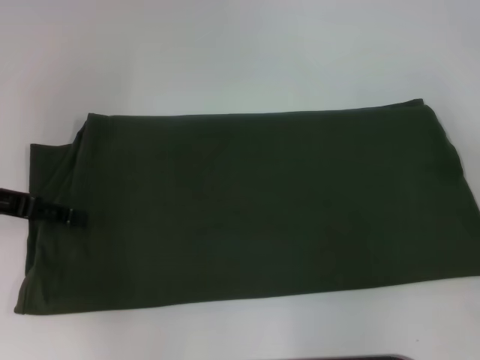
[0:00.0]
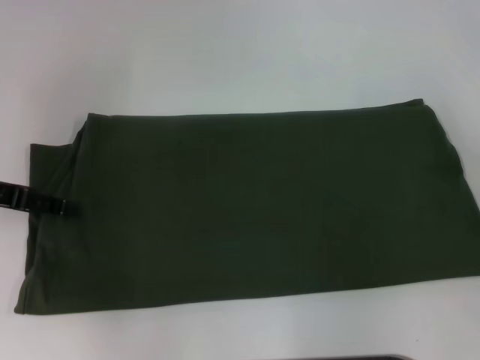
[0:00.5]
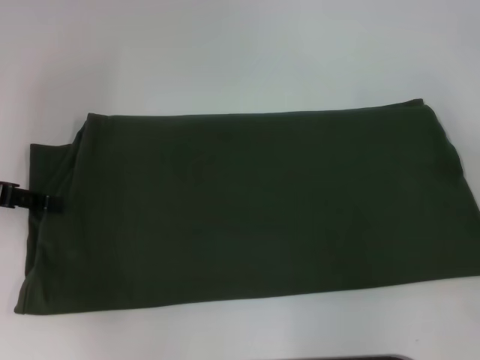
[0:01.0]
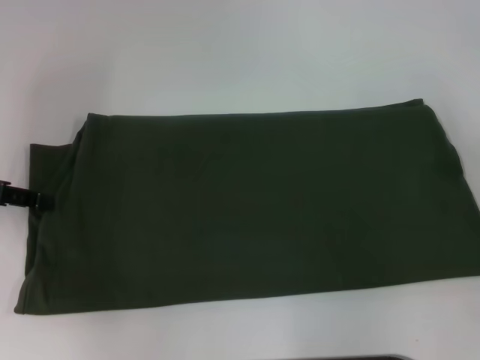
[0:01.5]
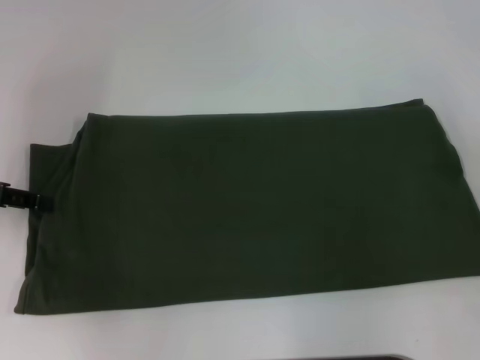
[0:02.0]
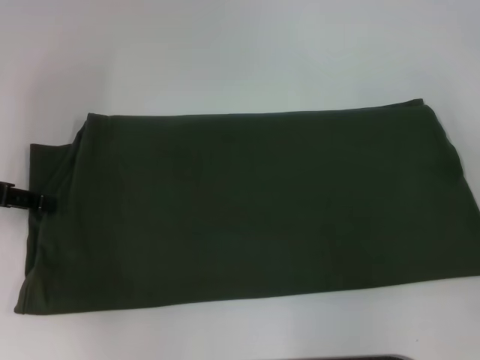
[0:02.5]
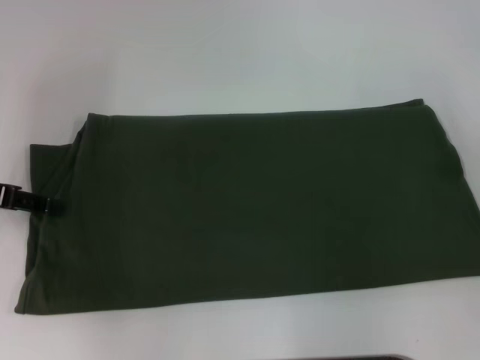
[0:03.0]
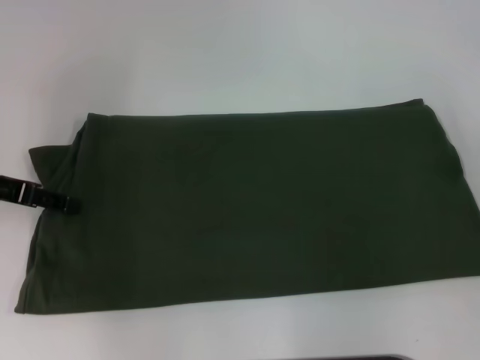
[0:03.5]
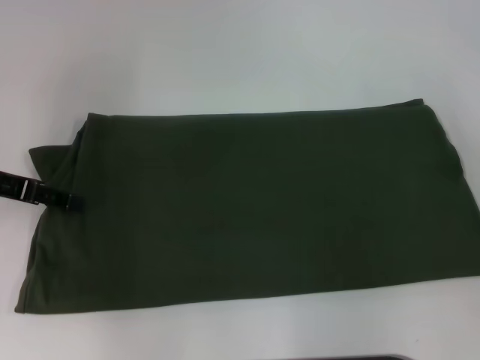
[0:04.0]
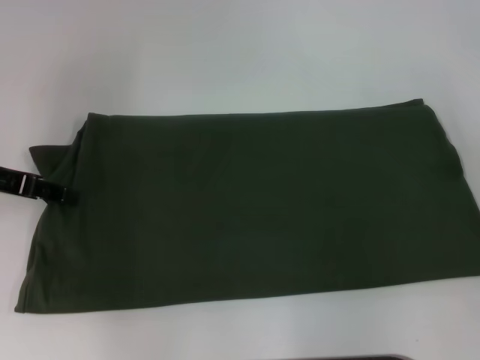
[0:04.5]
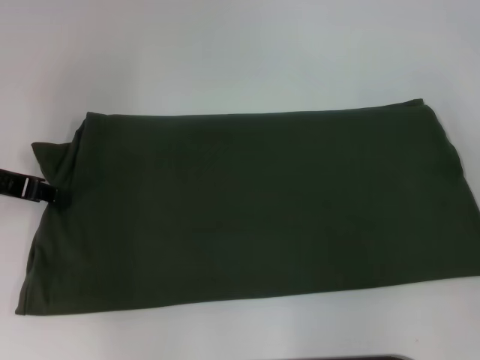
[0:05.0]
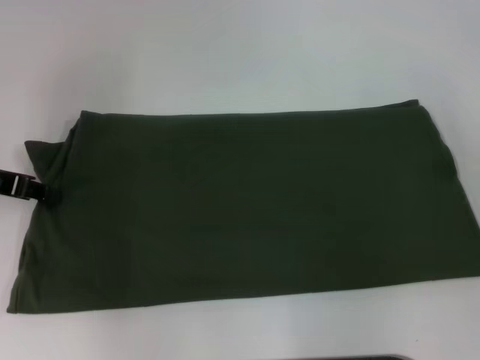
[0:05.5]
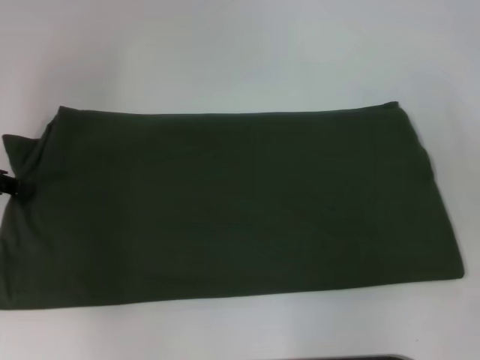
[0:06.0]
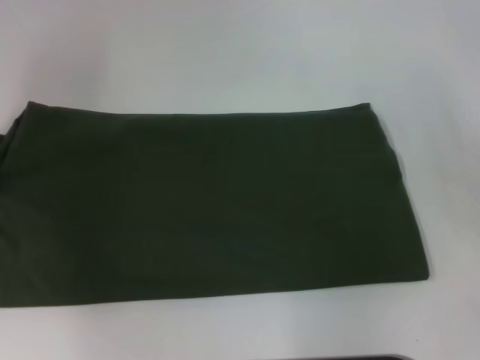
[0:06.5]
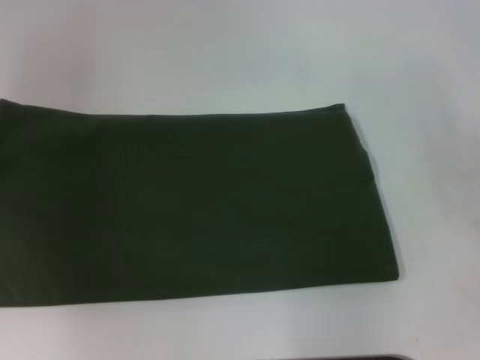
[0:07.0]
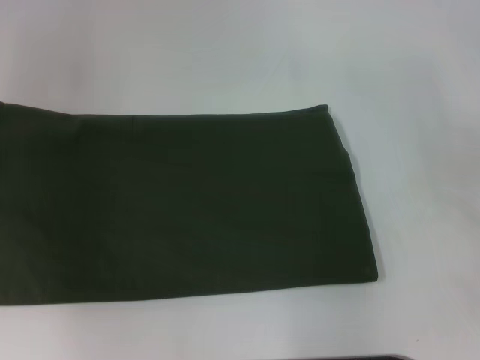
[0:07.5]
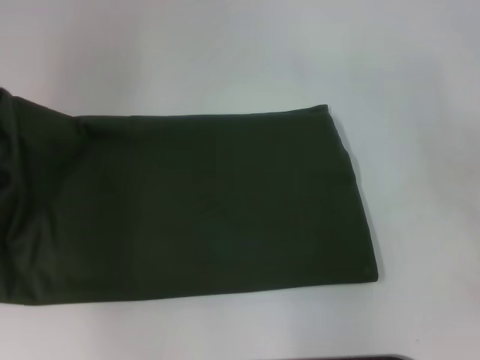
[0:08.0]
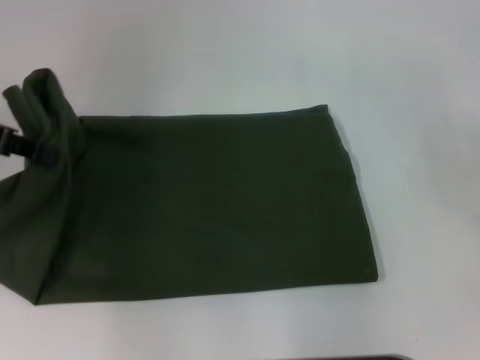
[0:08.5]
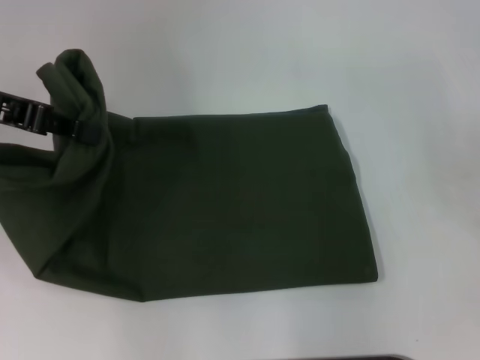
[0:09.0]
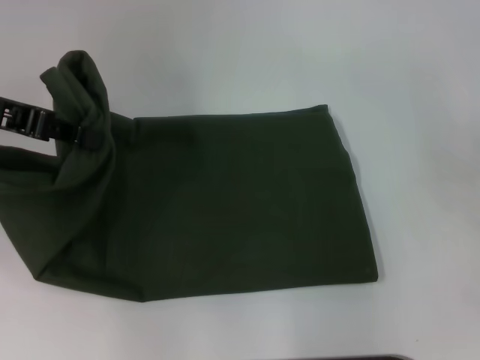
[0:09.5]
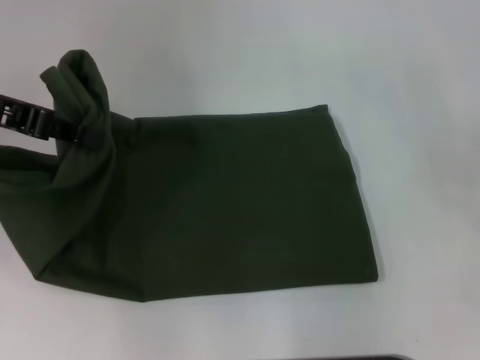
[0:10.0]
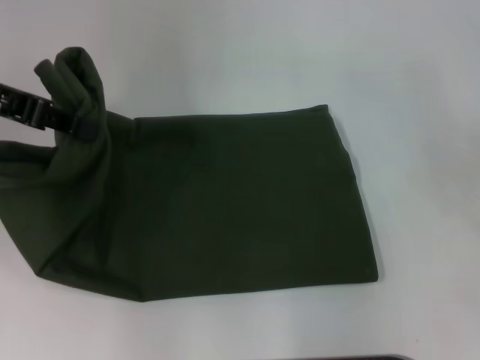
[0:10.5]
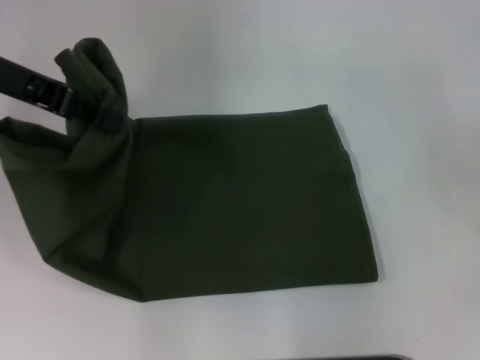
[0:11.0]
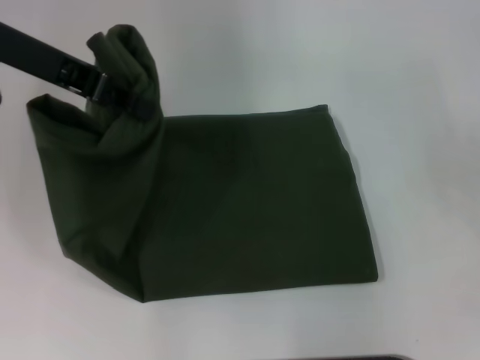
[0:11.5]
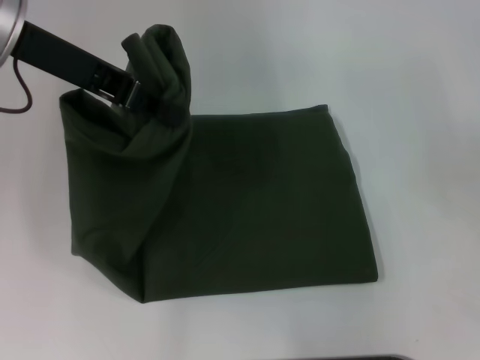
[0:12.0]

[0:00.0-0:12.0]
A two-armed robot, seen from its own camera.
0:02.0 to 0:04.0: The grippers make only small movements.
0:04.0 to 0:06.0: The left gripper closes up.
0:06.0 to 0:08.0: The left gripper heads upward, covering about 5 cm.
0:08.0 to 0:10.0: The left gripper travels to the right by roughly 5 cm.
0:10.0 to 0:12.0: The left gripper is displaced to the right by some 10 cm.

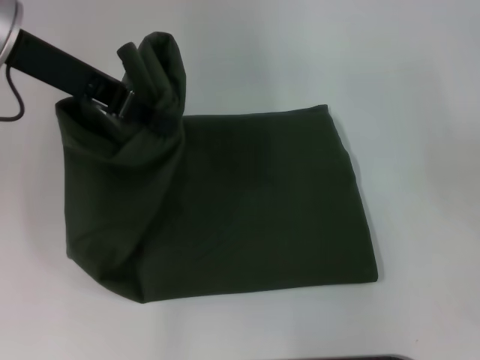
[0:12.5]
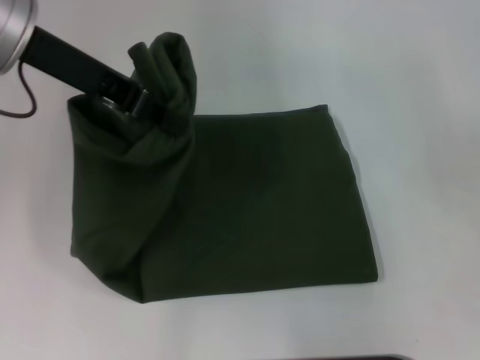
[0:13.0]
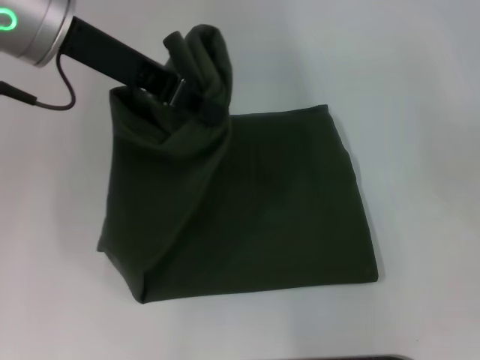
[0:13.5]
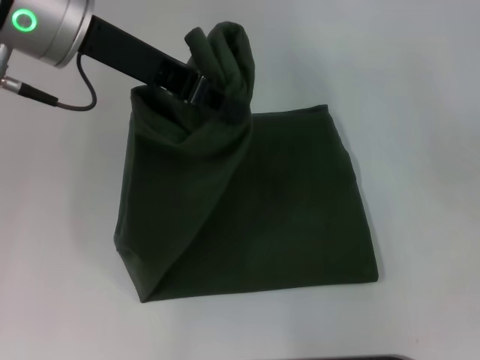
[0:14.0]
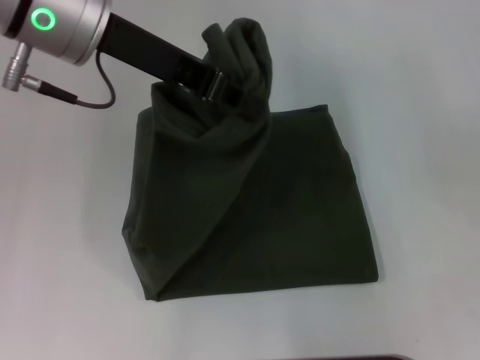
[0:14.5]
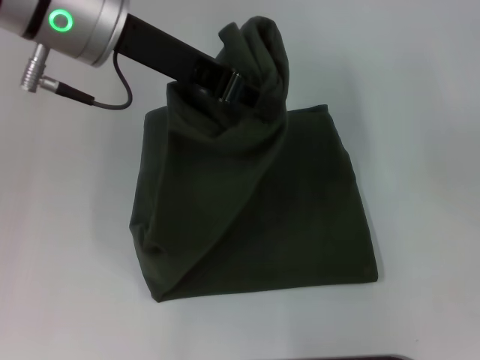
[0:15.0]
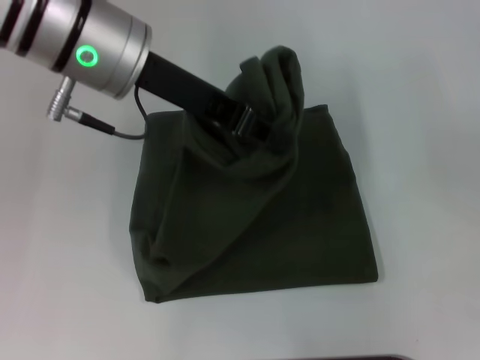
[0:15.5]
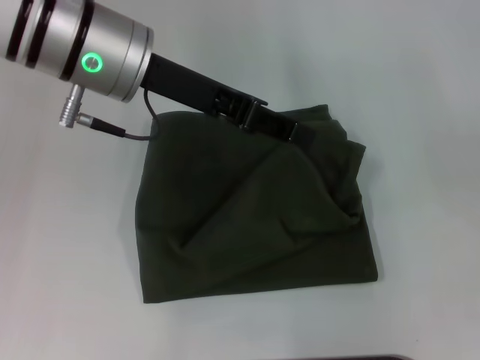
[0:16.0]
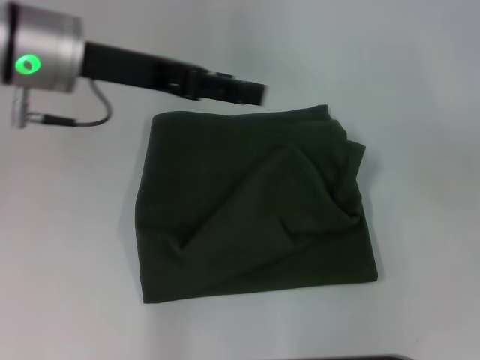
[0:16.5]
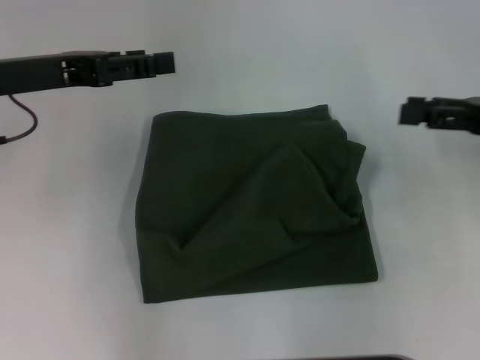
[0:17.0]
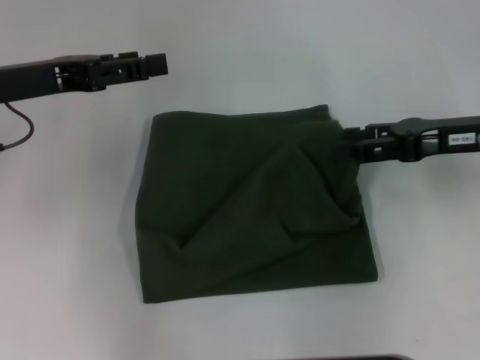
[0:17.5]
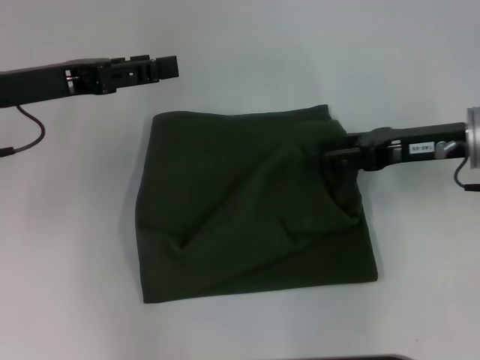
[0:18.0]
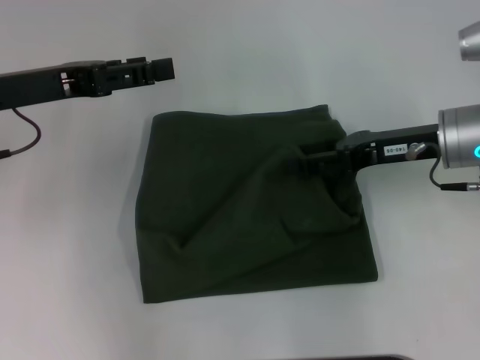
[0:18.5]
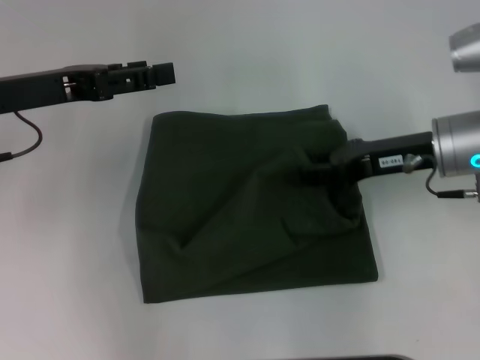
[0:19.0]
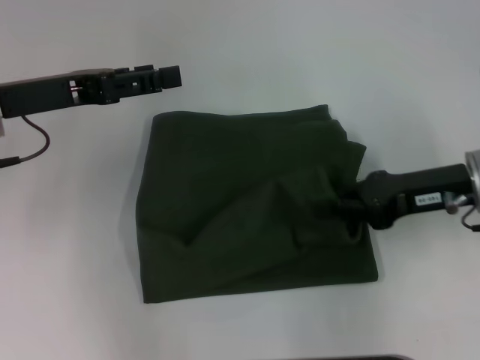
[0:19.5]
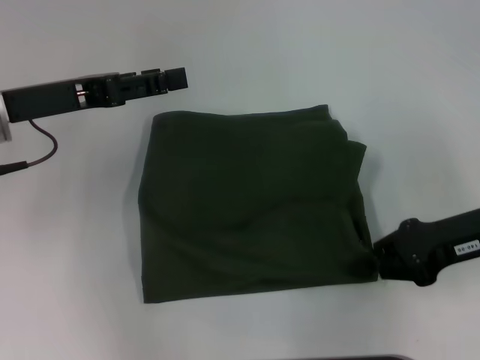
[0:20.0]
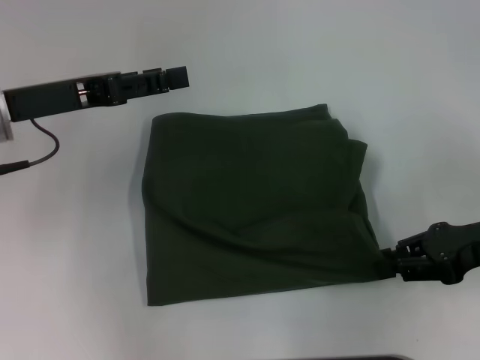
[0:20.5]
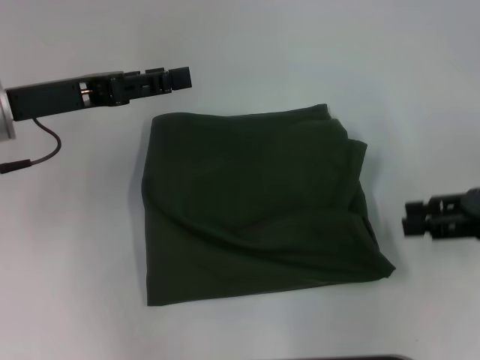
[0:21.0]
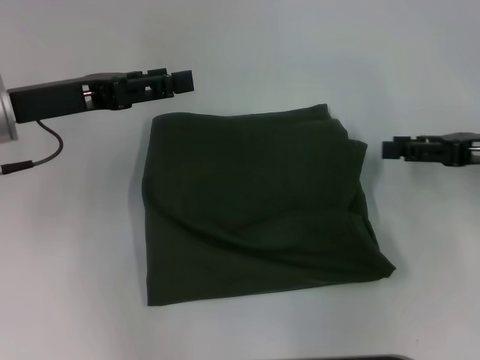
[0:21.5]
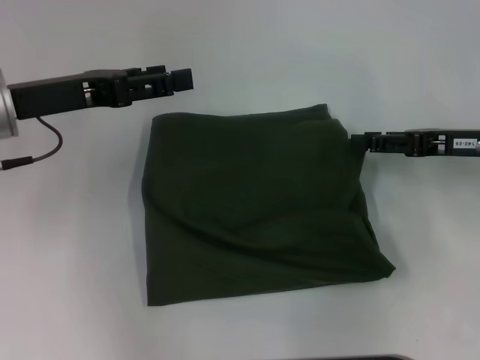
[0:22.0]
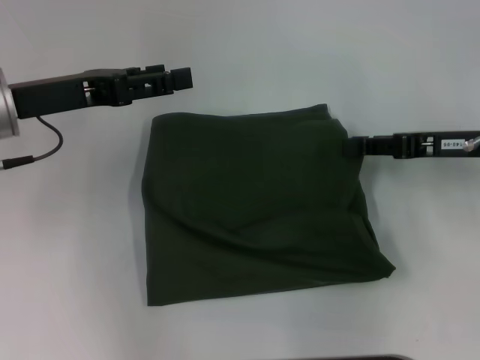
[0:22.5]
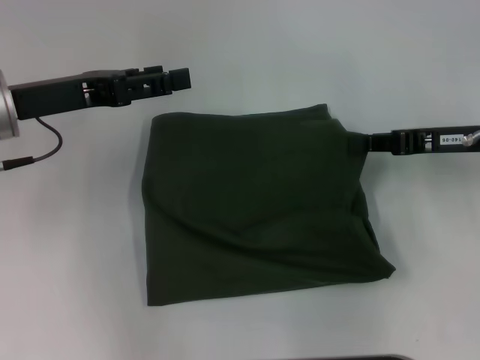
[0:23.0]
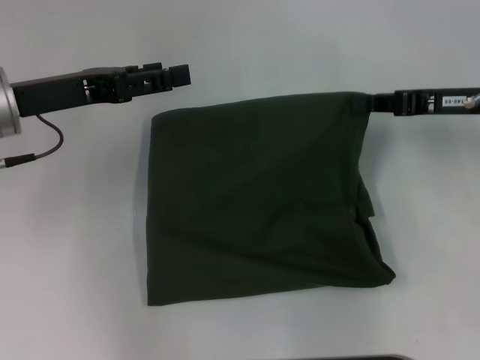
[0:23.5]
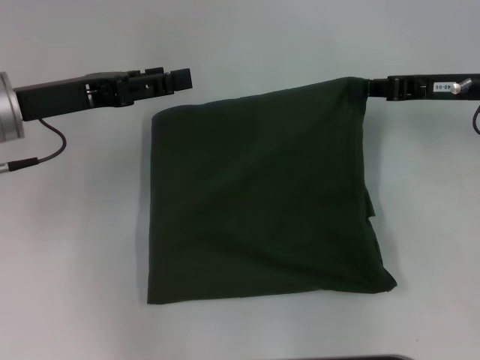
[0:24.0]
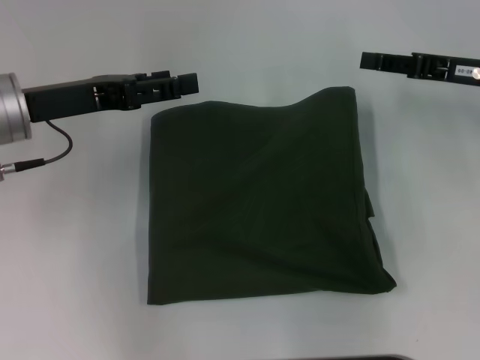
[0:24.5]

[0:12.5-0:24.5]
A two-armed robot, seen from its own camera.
0:12.5 to 0:14.5: The left gripper is displaced to the right by about 5 cm.
0:14.5 to 0:16.5: The left gripper is displaced downward by approximately 5 cm, and opens up.
0:16.5 to 0:18.5: The left gripper travels to the left by about 5 cm; the right gripper moves to the left, approximately 15 cm.
0:18.5 to 0:20.5: The right gripper is displaced backward and to the right by some 10 cm, and closes.
0:20.5 to 0:22.5: The right gripper goes about 5 cm forward, and opens up.
0:22.5 to 0:24.5: There are only small adjustments of the grippers.

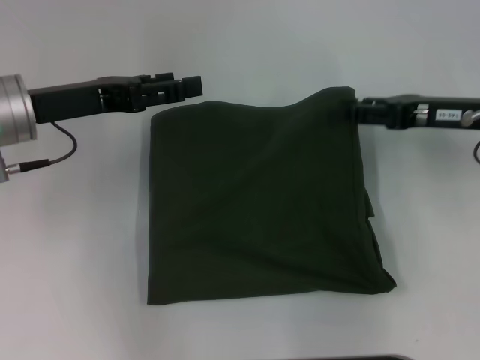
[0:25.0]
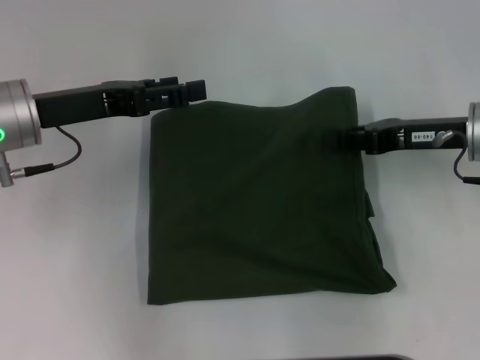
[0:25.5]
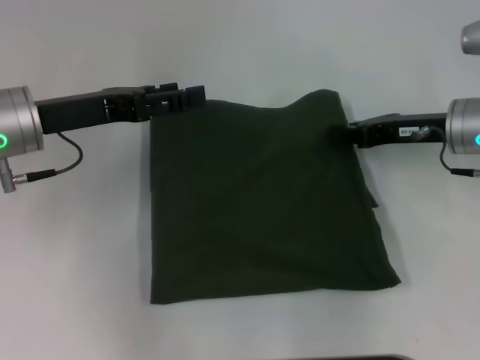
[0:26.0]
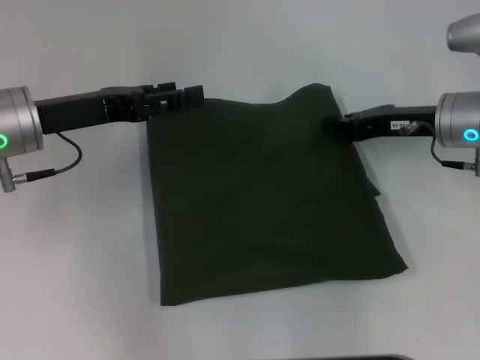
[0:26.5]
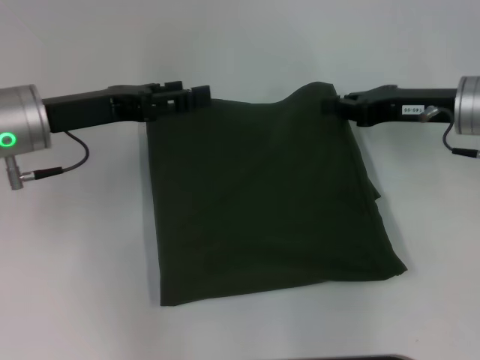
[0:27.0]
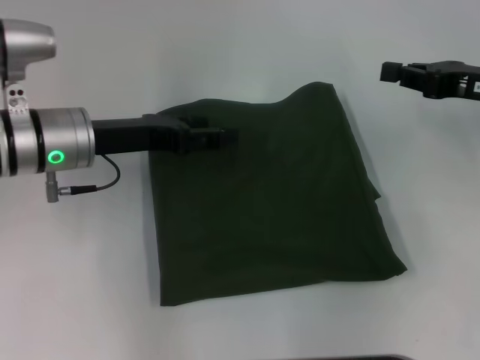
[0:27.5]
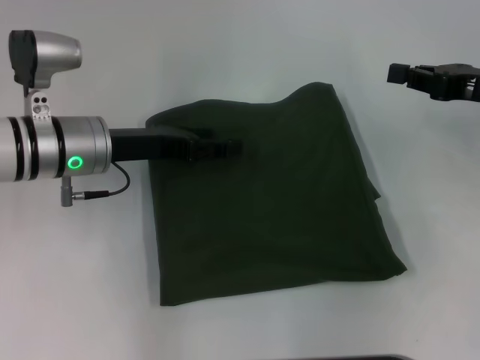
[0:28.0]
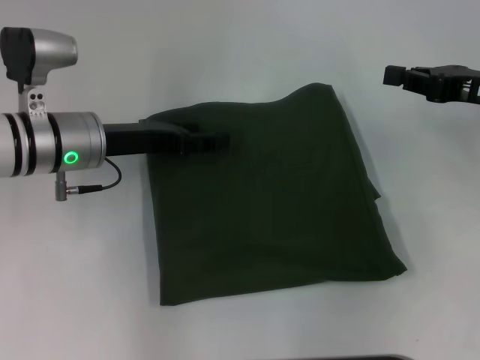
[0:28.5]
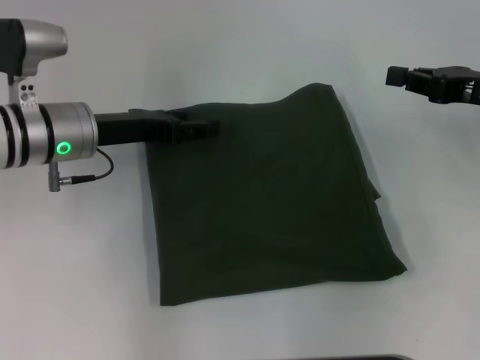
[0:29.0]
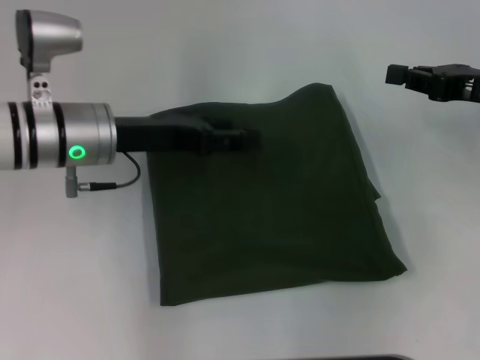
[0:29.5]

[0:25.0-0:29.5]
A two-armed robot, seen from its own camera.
0:25.0 to 0:27.0: The right gripper closes up.
0:27.0 to 0:29.5: Both grippers move to the right, approximately 5 cm.
